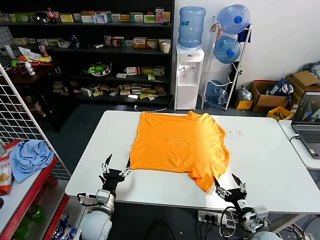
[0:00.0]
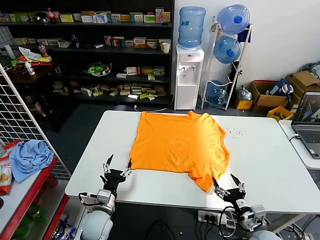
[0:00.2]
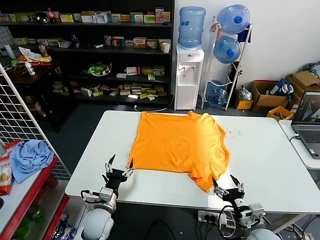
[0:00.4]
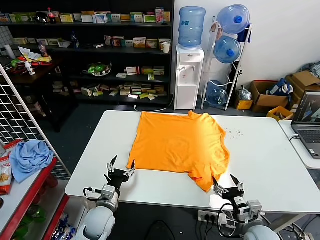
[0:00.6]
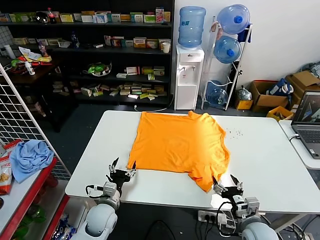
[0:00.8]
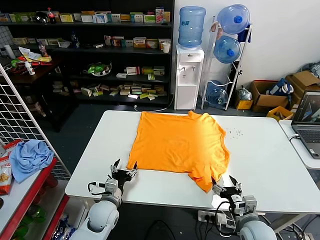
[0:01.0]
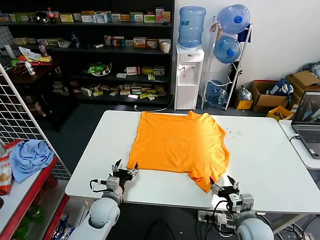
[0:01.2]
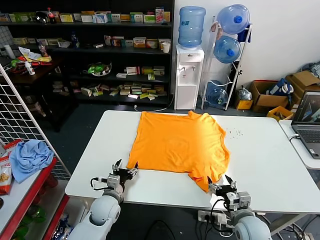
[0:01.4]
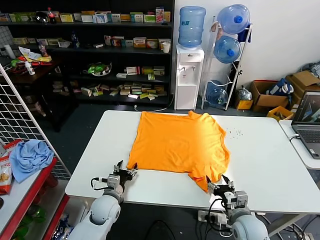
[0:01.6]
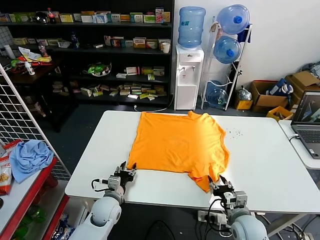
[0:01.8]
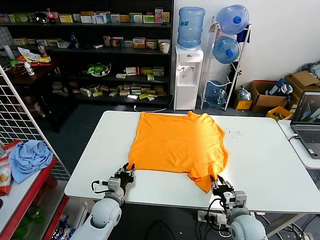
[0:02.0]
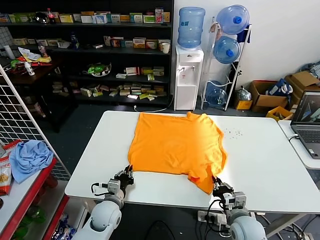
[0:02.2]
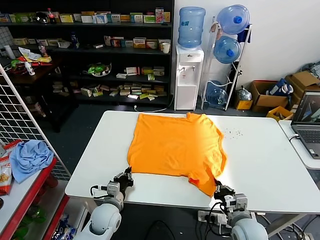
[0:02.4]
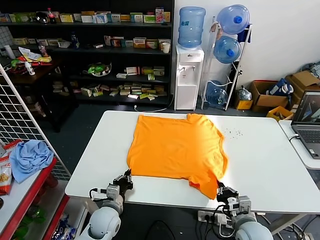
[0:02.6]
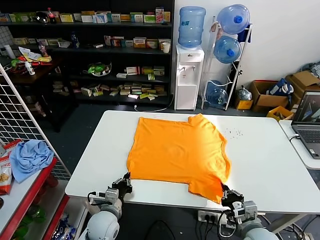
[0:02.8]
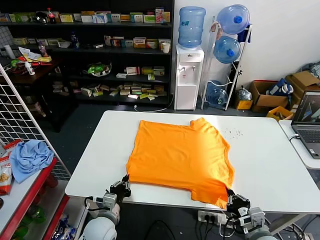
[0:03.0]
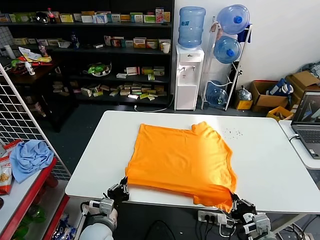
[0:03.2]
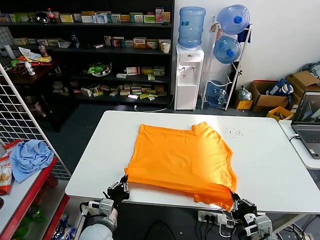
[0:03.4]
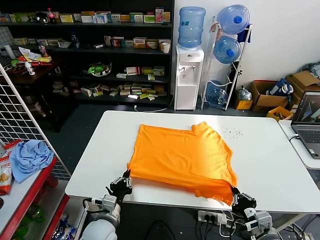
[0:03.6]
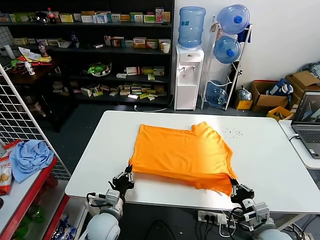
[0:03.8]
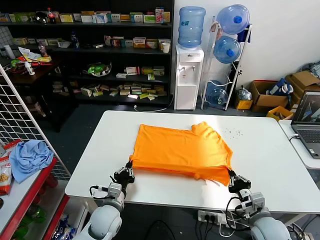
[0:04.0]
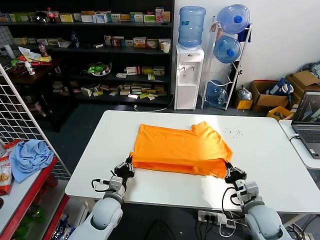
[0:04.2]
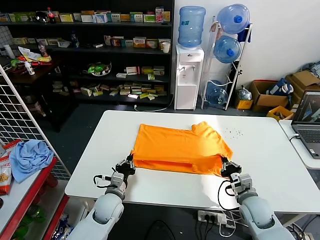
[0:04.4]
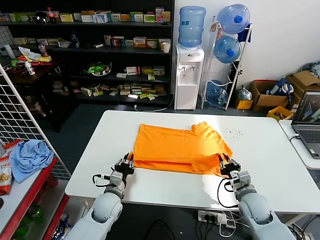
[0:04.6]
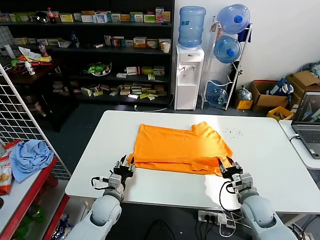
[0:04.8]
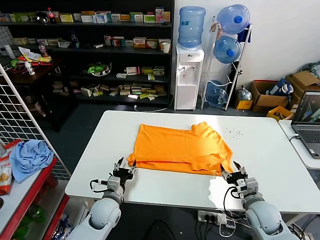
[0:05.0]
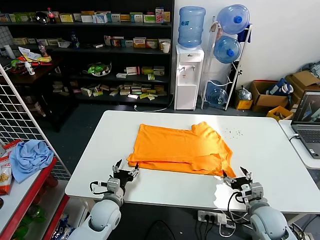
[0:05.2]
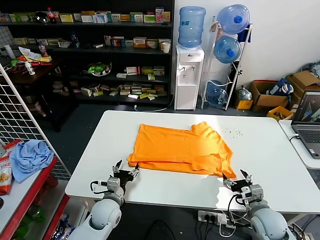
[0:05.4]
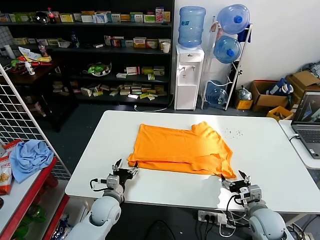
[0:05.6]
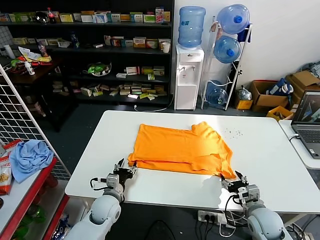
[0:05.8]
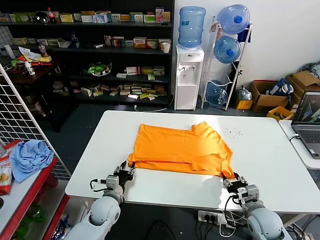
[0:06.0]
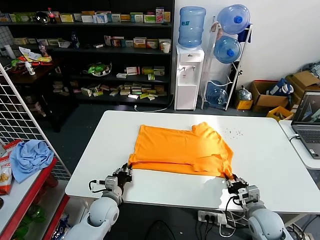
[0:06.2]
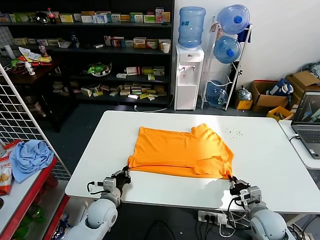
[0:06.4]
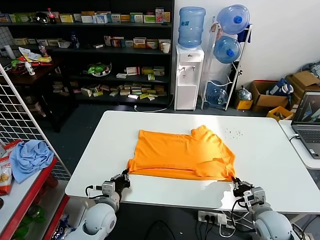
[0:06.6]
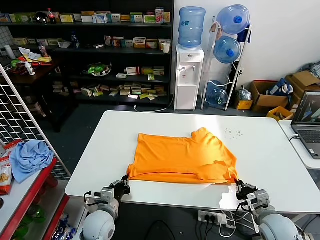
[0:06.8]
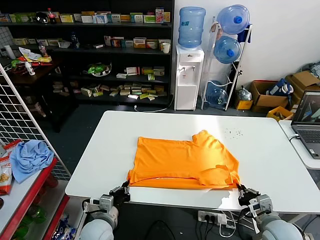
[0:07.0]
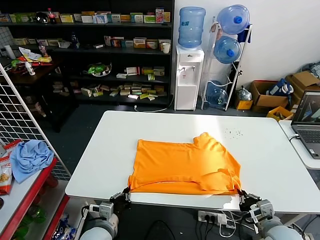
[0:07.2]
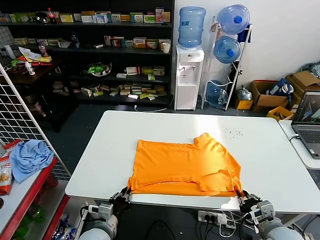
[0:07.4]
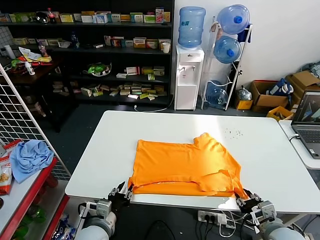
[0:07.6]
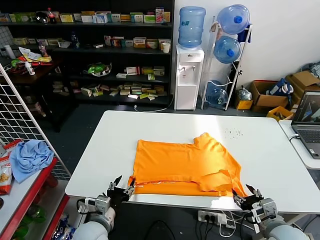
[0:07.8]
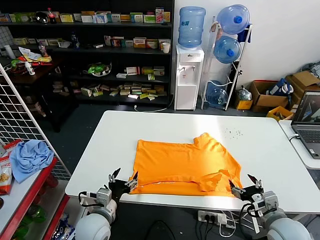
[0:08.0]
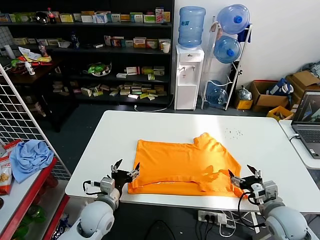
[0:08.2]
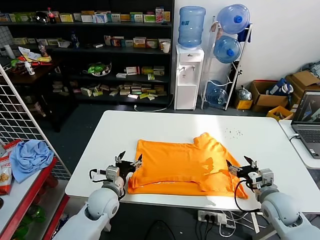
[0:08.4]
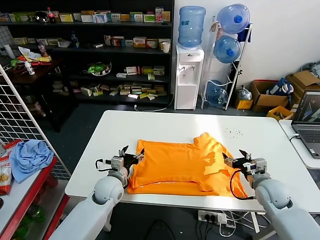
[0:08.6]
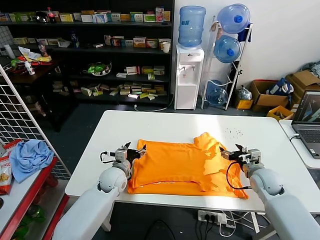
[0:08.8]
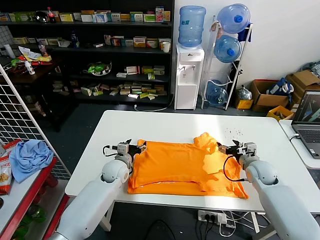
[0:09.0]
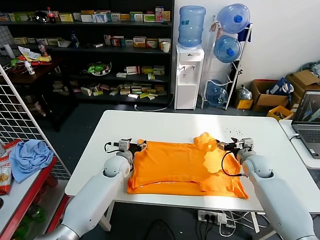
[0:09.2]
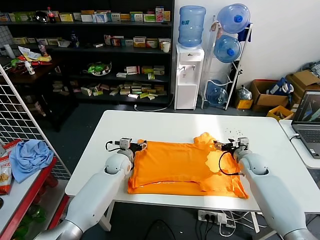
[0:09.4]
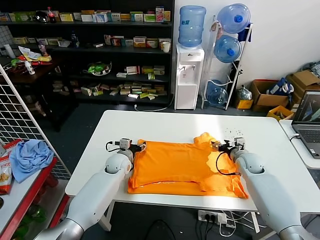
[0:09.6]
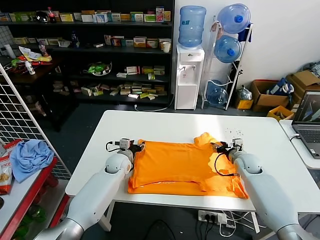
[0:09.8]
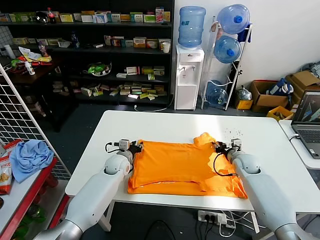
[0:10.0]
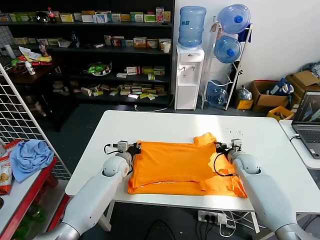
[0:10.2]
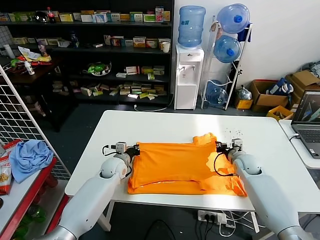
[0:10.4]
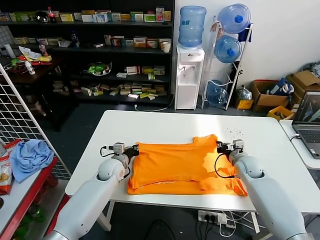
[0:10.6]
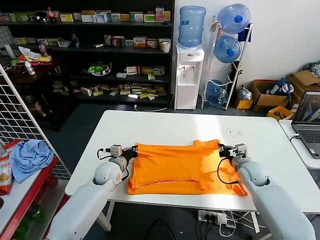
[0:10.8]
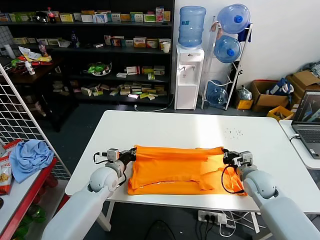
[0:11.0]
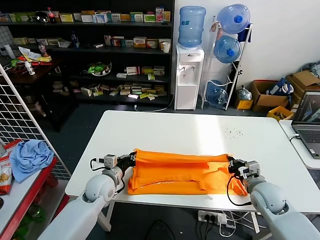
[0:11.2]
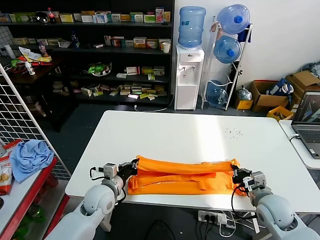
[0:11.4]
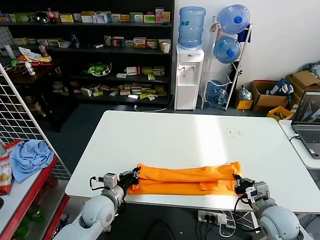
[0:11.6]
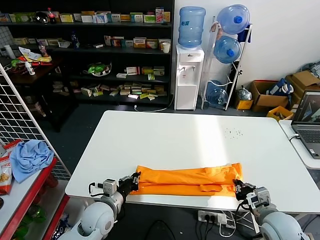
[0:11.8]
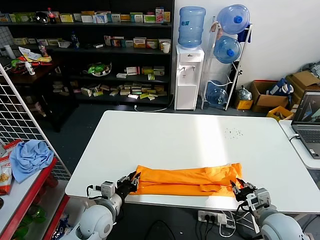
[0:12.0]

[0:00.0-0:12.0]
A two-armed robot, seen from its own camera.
Task of the whole recording: fold and organize the clothes.
Step, 0.0 to 2.6 s: use both grippers simultaneously to clamp the lower edge of the clothing fabric.
Step, 2.8 to 4.8 s: use both grippers to drag the lower edge of the fabric forward and fold it over the upper edge.
Step, 5.0 to 7.8 s: Drag the clothes downward with both gripper.
Step, 8.0 to 10.6 s: use both grippers simultaneously to clamp the upper edge of the clothing fabric.
1.6 to 3.0 s: The left gripper moves backward, some 10 cm, and closes up, while the right gripper travels backward and upward by some 10 cm, and closes its fingers.
3.0 to 4.4 s: The left gripper goes some 10 cm forward; the right gripper is displaced forward by about 15 cm.
4.4 to 6.0 s: The left gripper opens. Meanwhile the right gripper opens.
6.0 to 7.6 s: The right gripper goes about 10 cm backward and upward, and closes, then reopens. The left gripper shifts some 10 cm backward, and closes, then reopens.
7.6 to 9.0 s: Both grippers move forward, roughly 25 cm. The left gripper opens up; the right gripper opens.
9.0 to 10.4 s: The left gripper closes up, while the right gripper changes place by about 5 cm, and closes.
10.4 to 12.0 s: Both grippers travel together backward, approximately 20 cm. The right gripper opens.

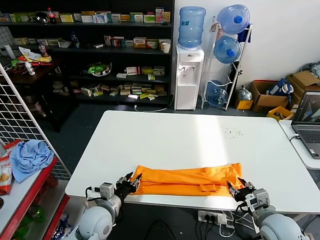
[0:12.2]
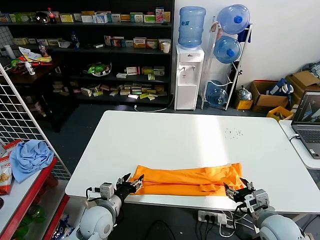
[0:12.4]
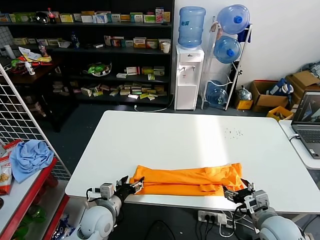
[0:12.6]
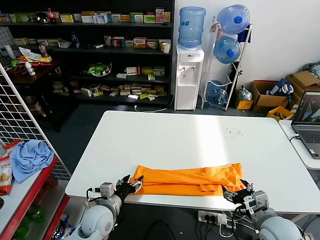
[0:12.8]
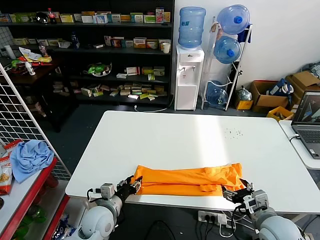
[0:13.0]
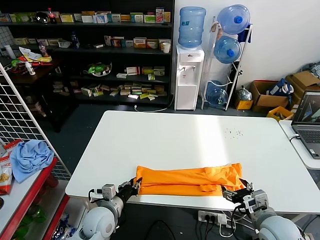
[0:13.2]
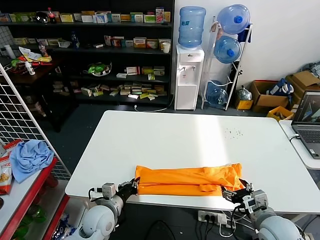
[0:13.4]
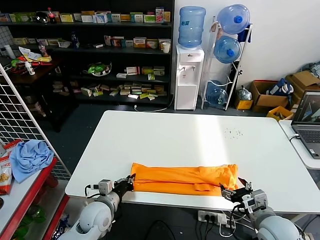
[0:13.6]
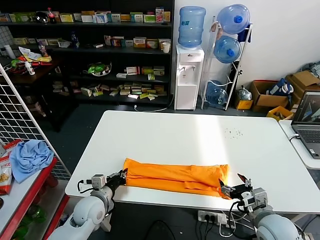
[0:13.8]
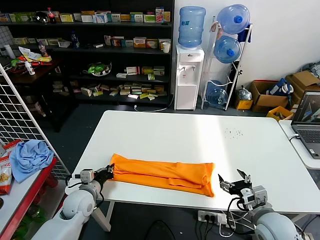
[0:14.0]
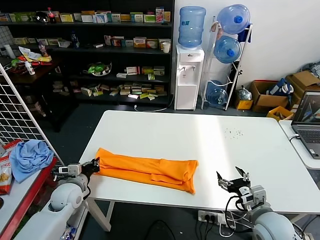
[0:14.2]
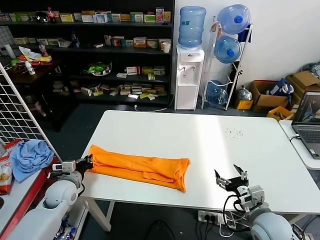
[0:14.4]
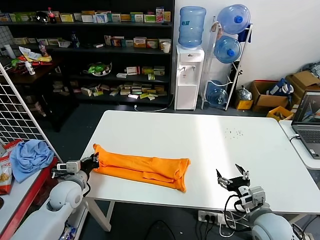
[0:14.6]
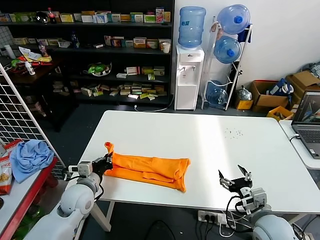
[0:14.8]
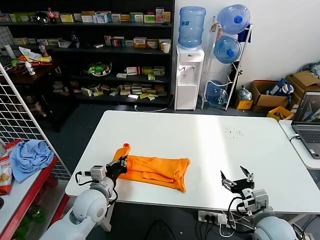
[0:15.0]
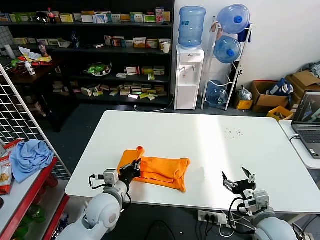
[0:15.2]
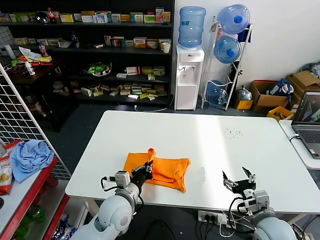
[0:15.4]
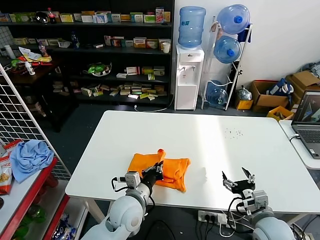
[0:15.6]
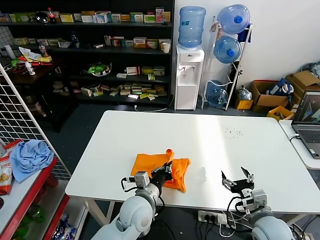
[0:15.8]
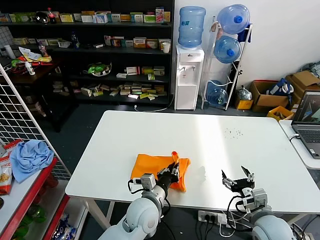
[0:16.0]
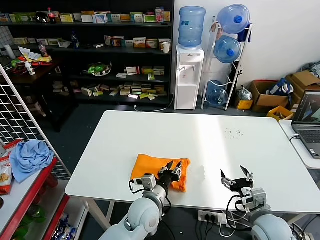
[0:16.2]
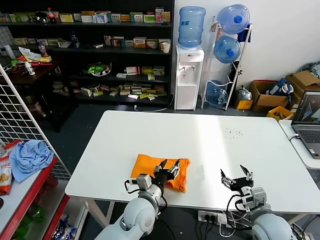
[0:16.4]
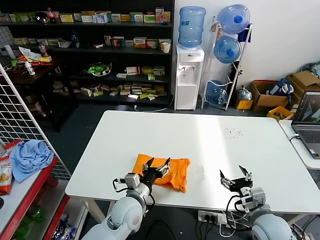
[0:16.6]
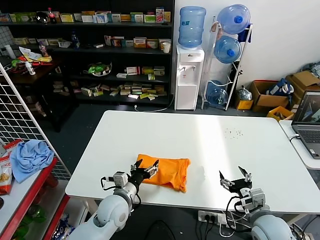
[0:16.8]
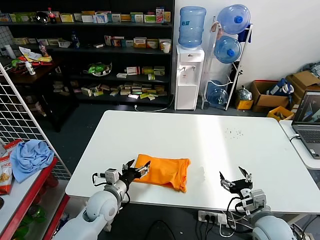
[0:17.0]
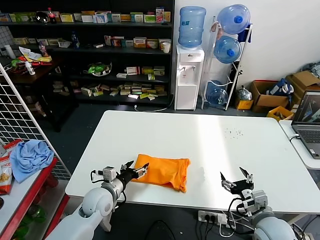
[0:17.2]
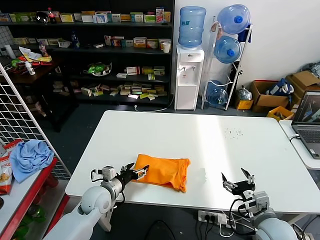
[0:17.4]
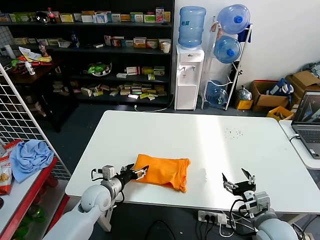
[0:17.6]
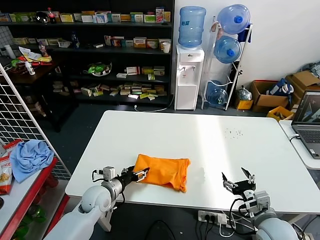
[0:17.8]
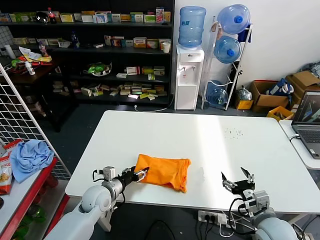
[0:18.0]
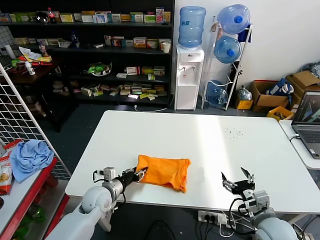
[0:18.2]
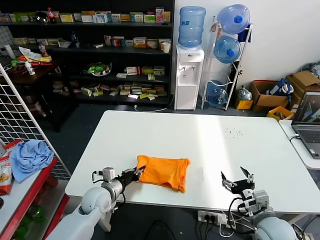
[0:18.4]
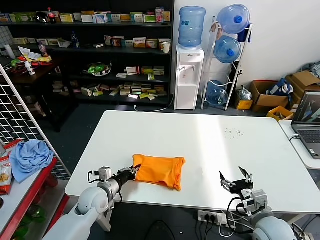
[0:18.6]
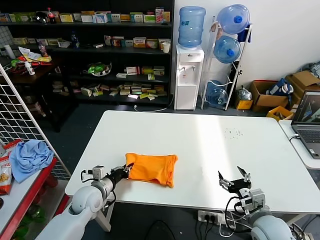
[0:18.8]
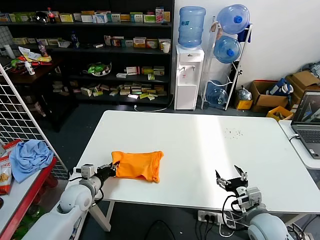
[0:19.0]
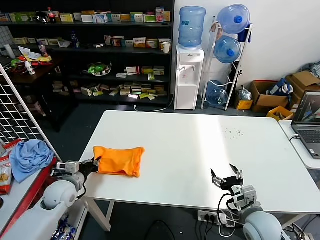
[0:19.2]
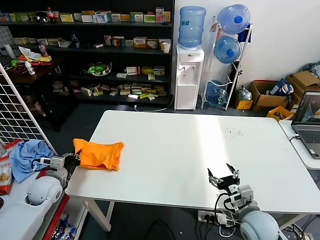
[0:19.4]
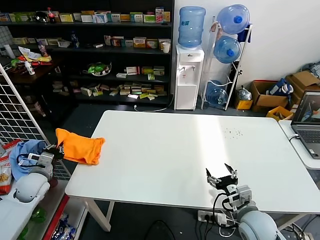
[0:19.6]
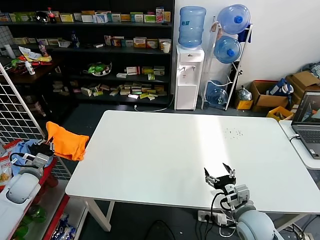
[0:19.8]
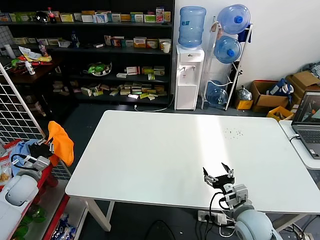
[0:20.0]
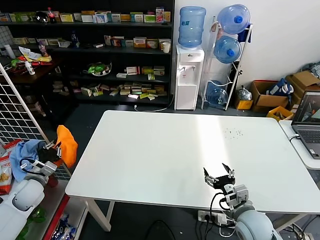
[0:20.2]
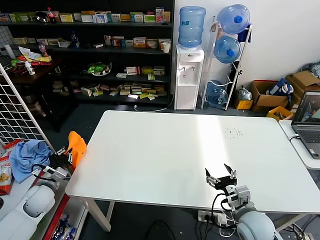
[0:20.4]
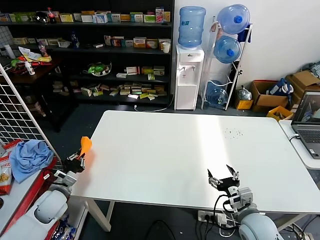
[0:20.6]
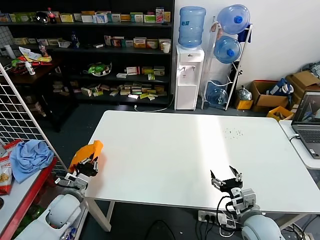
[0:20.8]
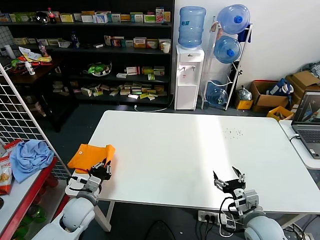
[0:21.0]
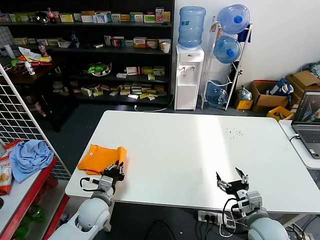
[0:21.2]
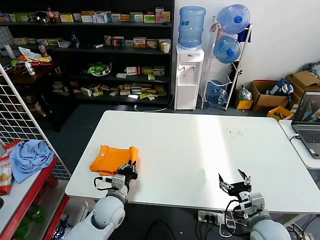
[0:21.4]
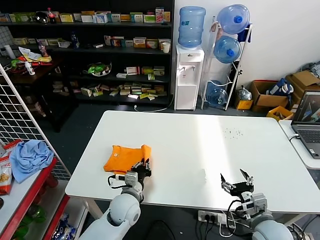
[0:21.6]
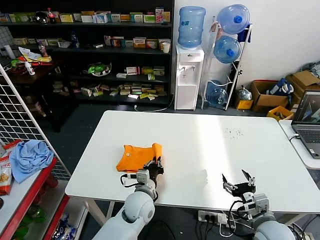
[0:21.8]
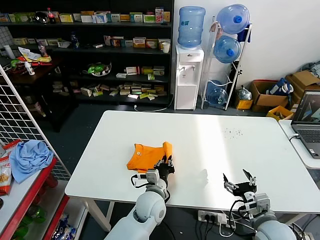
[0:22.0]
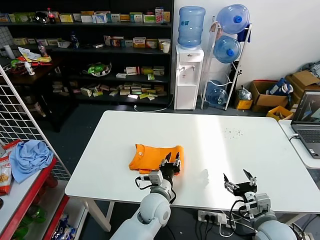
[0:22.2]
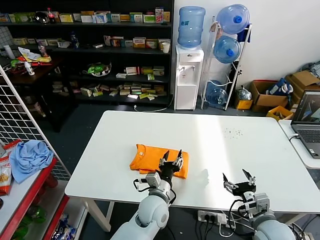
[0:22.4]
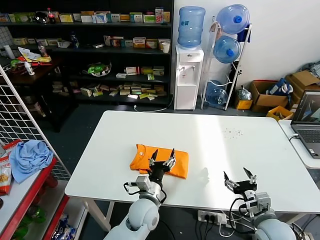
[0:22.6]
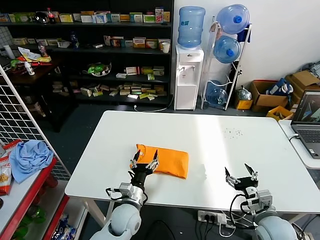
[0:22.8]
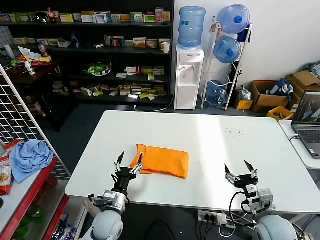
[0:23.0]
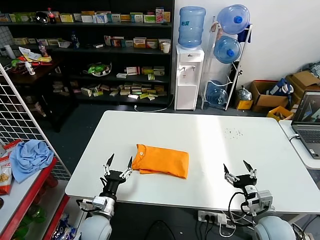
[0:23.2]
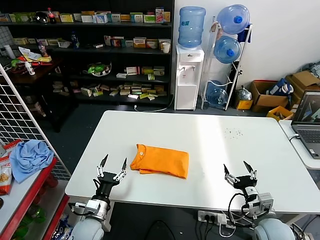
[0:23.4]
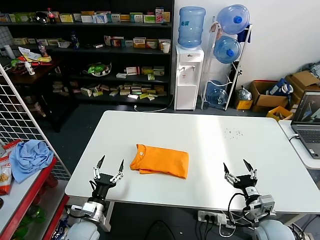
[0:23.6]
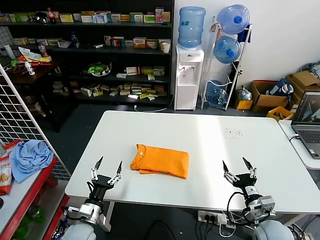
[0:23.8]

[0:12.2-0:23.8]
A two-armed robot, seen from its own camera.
Task of the whole recording: fold and organize the clothes.
Step, 12.8 to 13.6 s: use the left gripper to clamp the left edge of the fabric.
Step, 13.8 to 16.4 s: use the left gripper to drag the left edge of the fabric to the left and folds it over the right edge.
Step, 16.6 to 22.4 s: Flip the folded clothes over with left gripper.
12.2 to 13.6 s: The right gripper opens its fingers. Meanwhile the left gripper closes its fingers.
13.6 to 15.0 s: The left gripper moves upward, roughly 5 cm, and moves about 15 cm to the left and comes back.
15.0 to 16.6 s: The left gripper goes roughly 15 cm to the right, and opens up.
16.6 to 18.0 s: The left gripper shifts some 15 cm to the left and forward.
18.0 to 19.4 s: The left gripper goes roughly 15 cm to the left, and closes up.
19.4 to 21.0 s: The left gripper heads to the right and backward, covering roughly 10 cm.
21.0 to 22.4 s: The left gripper shifts roughly 25 cm to the right, and opens its fingers.
22.4 to 23.8 s: The left gripper travels to the left by some 25 cm.
